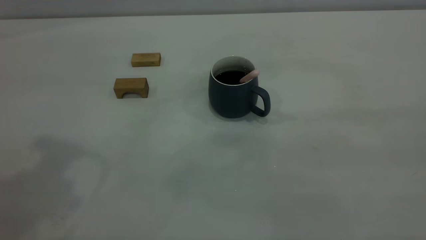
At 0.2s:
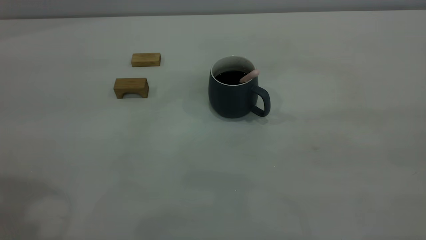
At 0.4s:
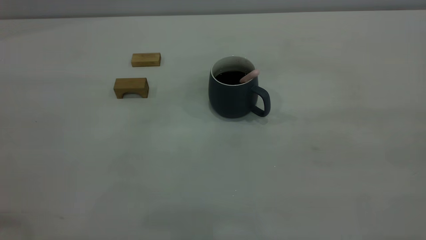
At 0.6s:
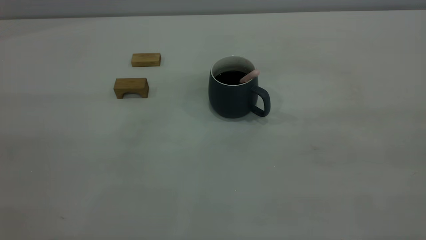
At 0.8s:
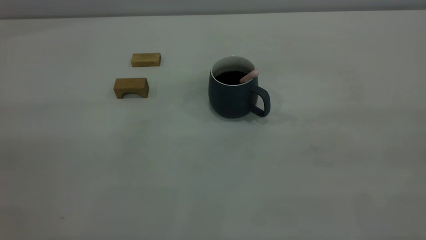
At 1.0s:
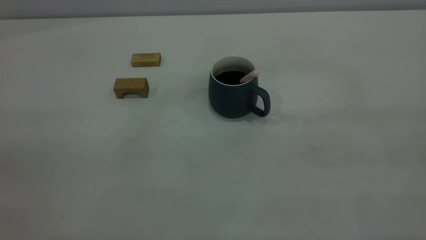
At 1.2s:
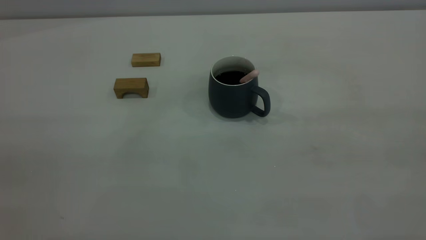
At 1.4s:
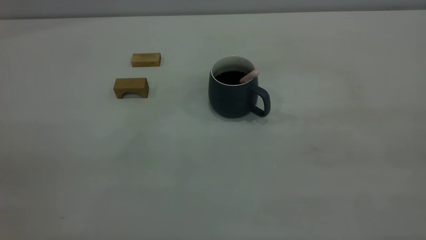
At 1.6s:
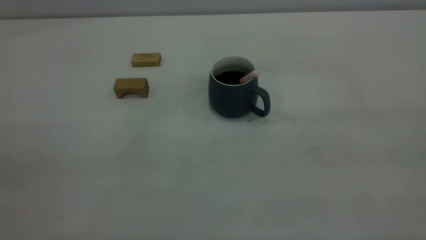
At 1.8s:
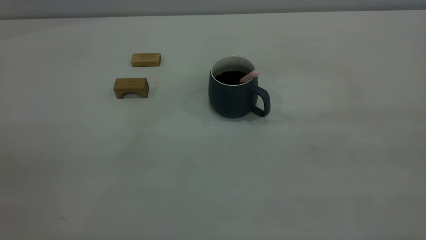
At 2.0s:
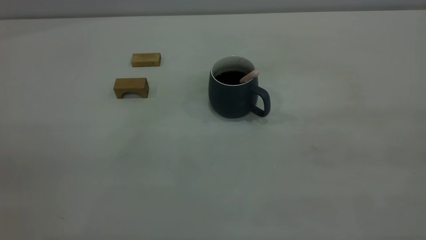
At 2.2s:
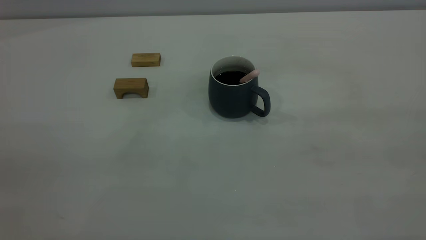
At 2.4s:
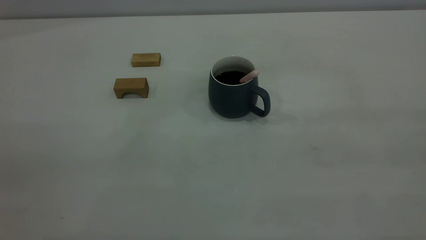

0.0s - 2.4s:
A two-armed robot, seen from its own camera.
1.2s - 2.4s: Neither gripper changes place.

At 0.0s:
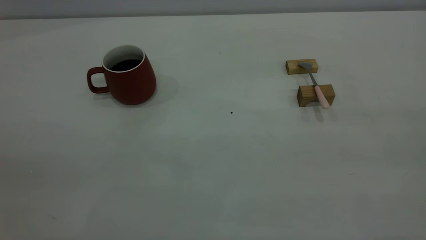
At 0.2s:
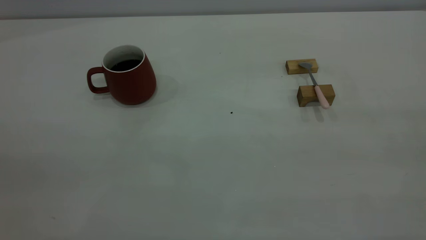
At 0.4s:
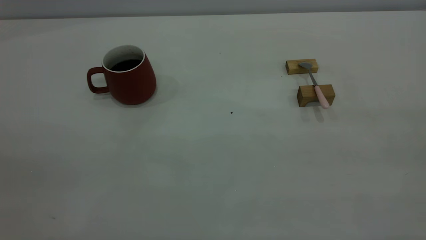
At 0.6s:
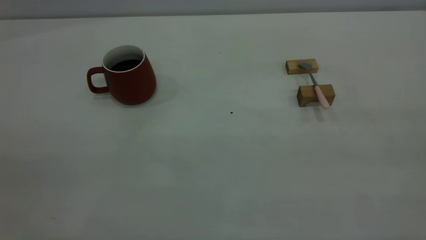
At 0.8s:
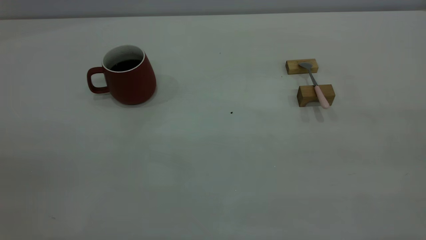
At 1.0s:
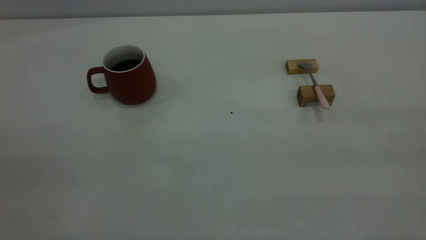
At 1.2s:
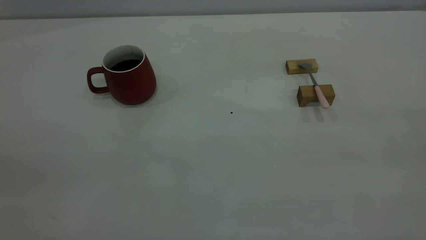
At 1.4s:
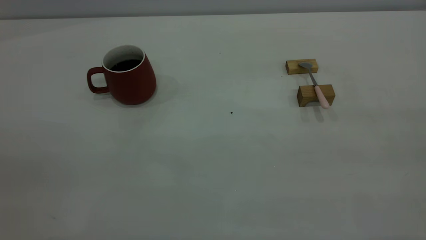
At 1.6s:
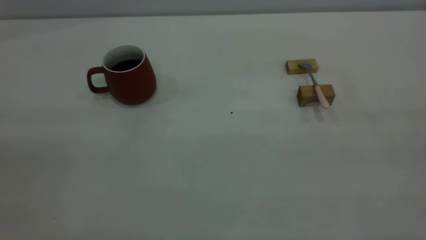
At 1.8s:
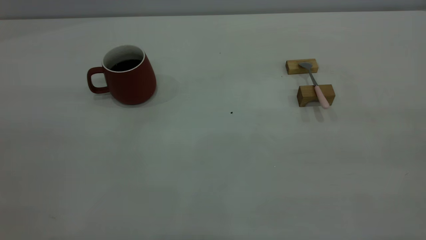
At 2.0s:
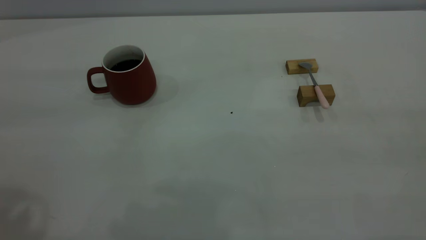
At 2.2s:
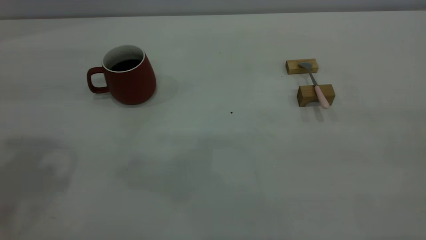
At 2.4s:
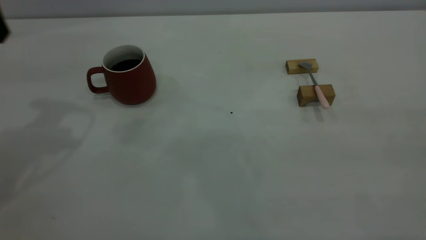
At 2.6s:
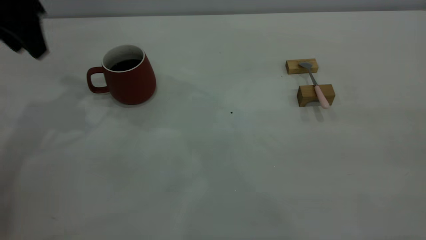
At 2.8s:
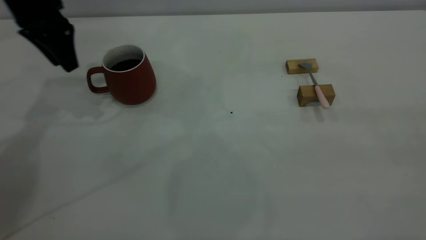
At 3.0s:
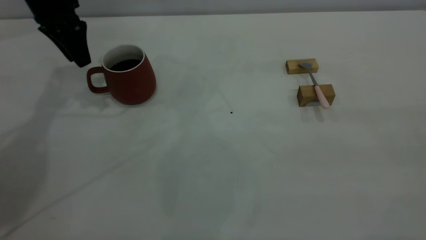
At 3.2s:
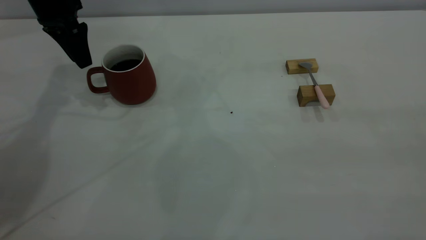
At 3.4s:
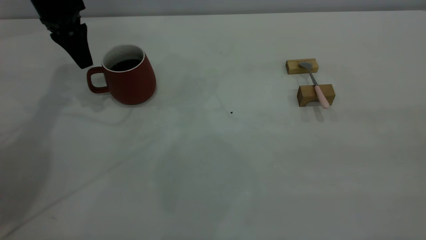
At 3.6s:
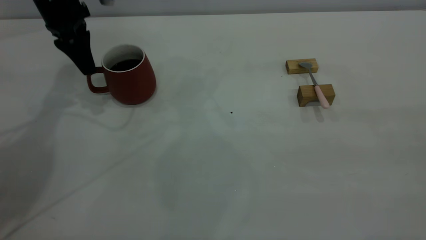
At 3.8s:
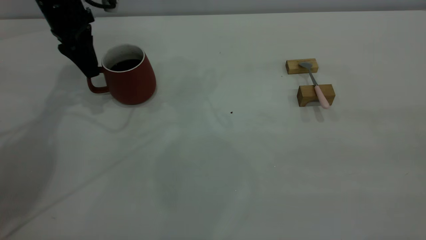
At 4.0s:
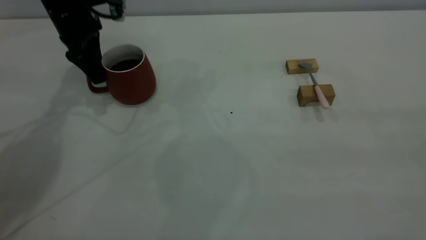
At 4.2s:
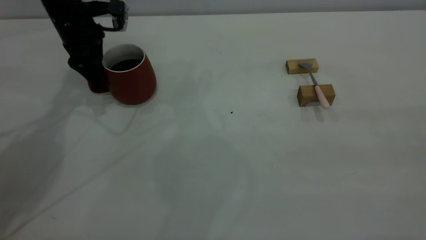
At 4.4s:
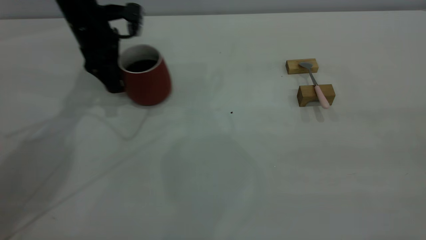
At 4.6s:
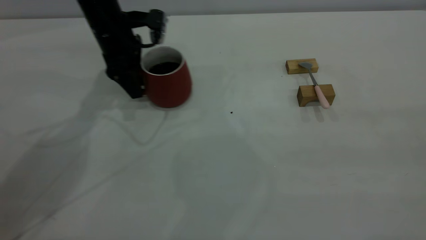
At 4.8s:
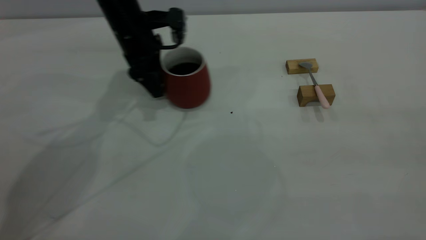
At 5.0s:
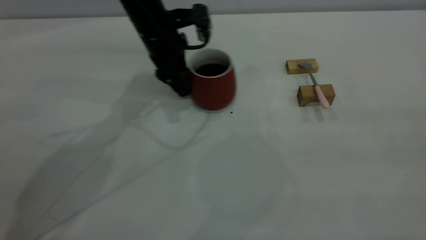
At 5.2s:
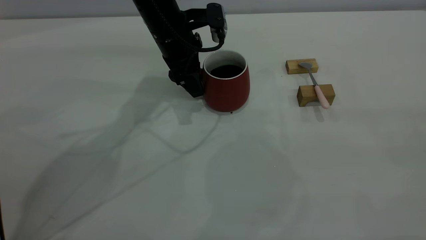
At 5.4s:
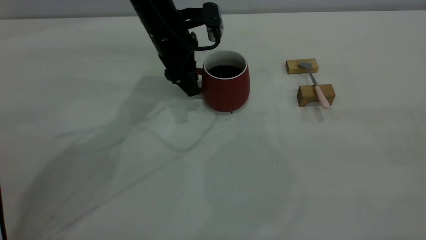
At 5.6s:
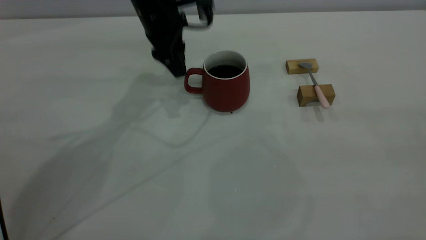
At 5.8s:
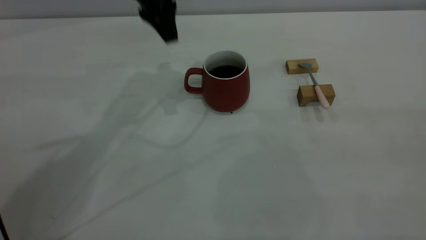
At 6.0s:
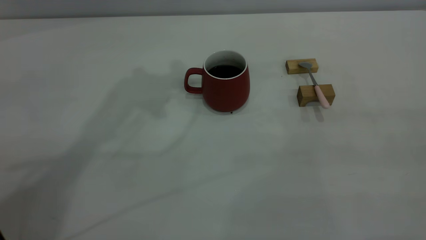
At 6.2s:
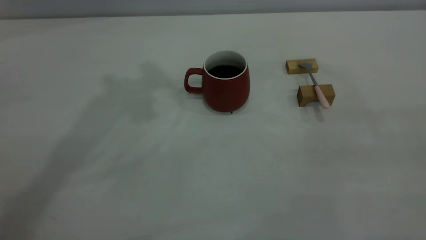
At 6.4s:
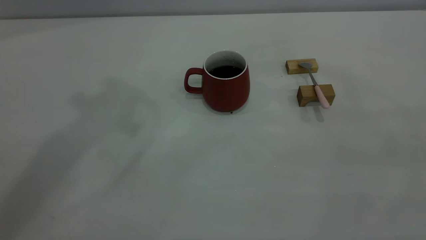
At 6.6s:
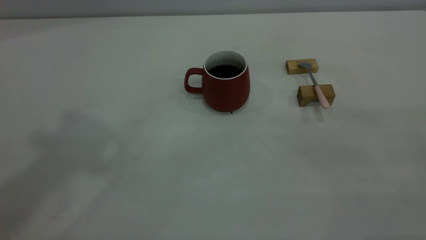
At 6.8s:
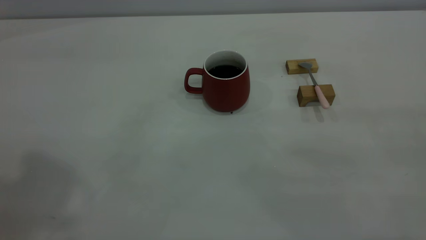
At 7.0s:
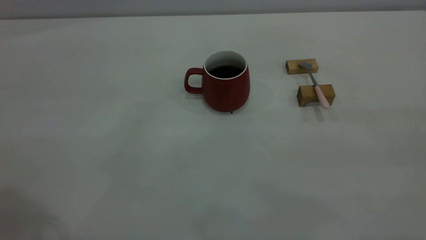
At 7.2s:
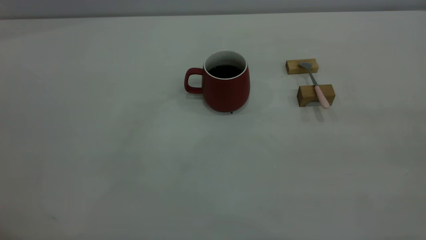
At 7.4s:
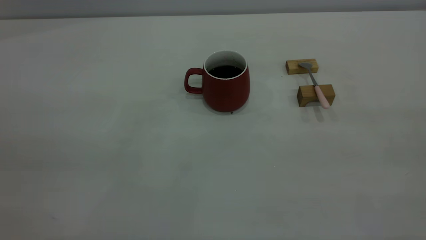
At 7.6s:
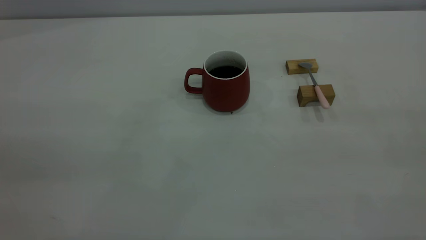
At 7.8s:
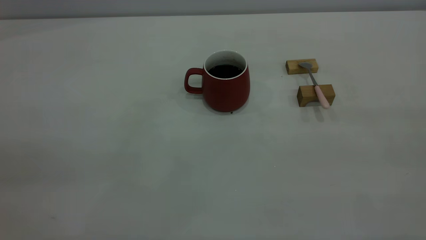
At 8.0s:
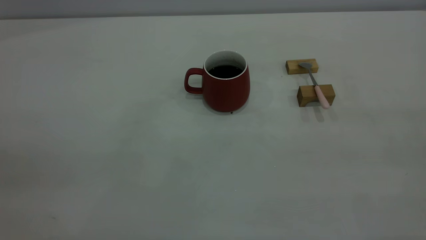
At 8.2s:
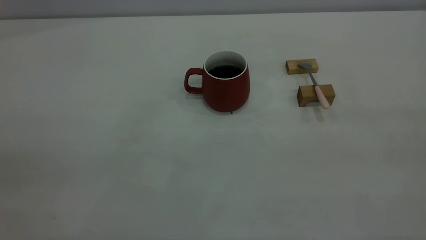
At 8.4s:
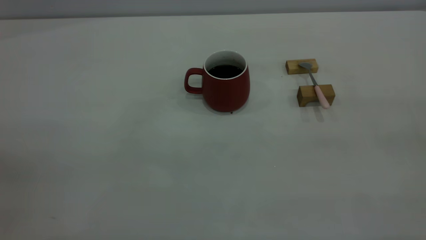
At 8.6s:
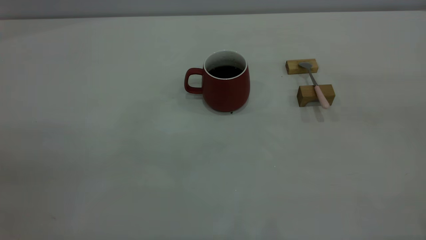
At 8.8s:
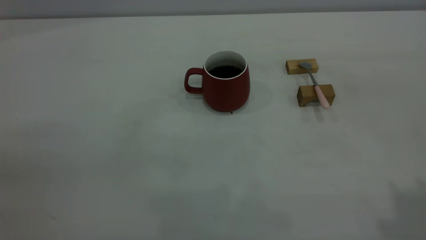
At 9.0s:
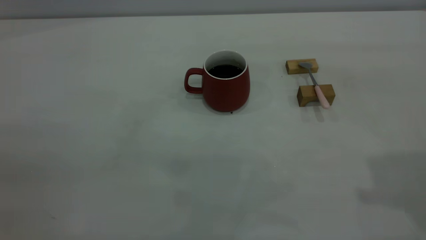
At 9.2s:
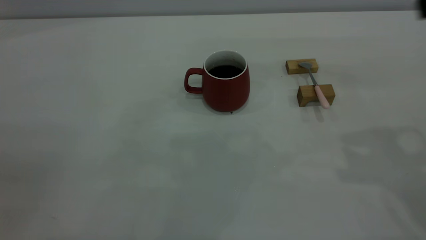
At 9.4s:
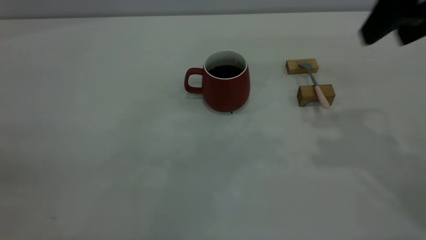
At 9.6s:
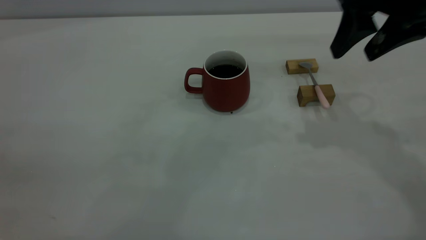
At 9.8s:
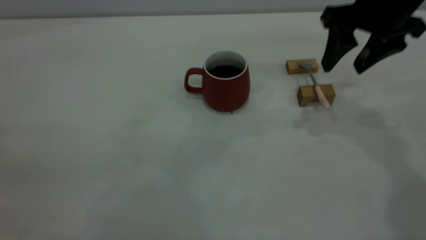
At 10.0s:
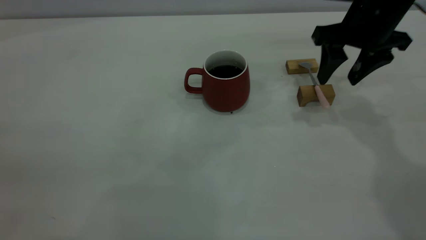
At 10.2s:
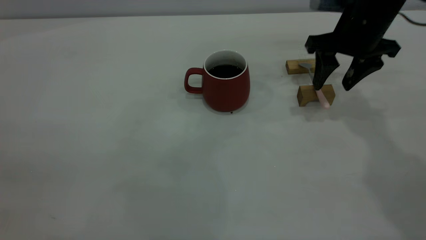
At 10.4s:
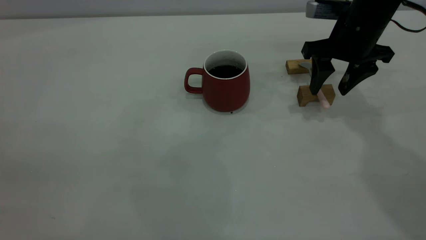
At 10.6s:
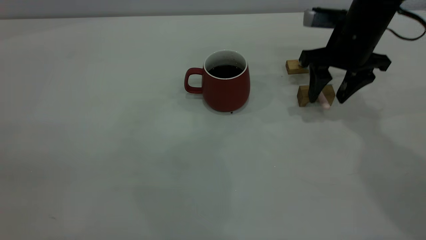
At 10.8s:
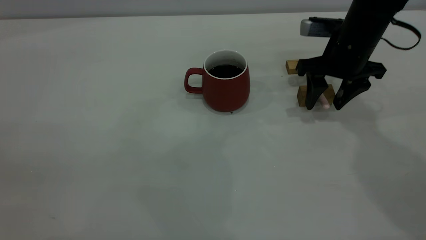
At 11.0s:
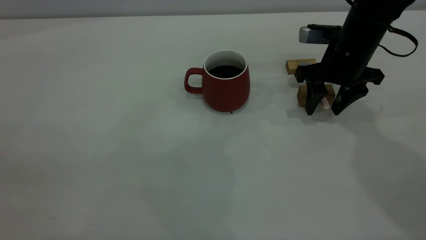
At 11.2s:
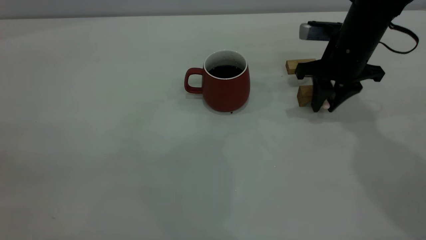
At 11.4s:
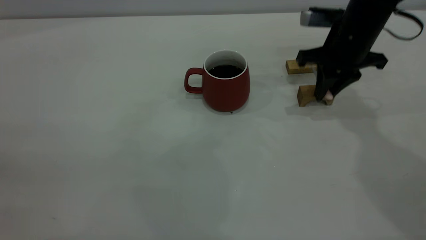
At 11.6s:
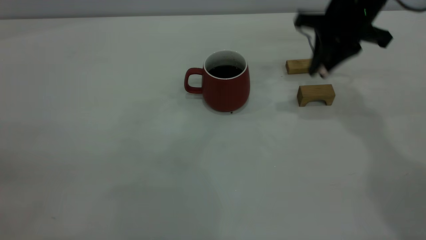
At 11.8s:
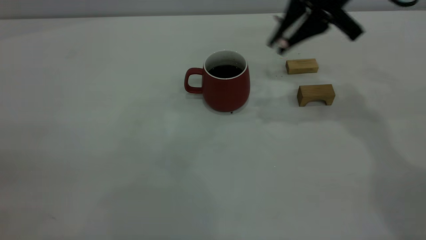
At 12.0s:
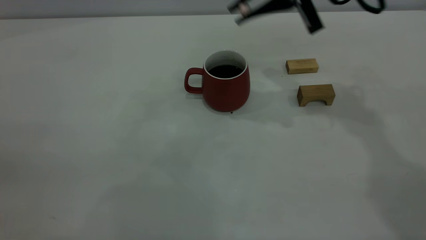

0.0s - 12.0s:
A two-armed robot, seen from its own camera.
Step, 0.0s - 5.6s: Move the cup with coffee to the center of view.
Step, 5.8s - 11.4s: Pick up the spoon.
1.6s - 3.0s: The left gripper heads forward and downward, covering roughly 50 cm.
3.0s - 4.4s: The left gripper heads downward and to the right, covering roughly 10 cm.
4.4s - 6.0s: The left gripper heads upward, covering some 25 cm.
9.0s - 10.4s: The right gripper goes approximately 30 cm downward and forward.
10.4s - 12.0s: The right gripper is displaced upward and to the left by some 10 cm, and closes its fingers.

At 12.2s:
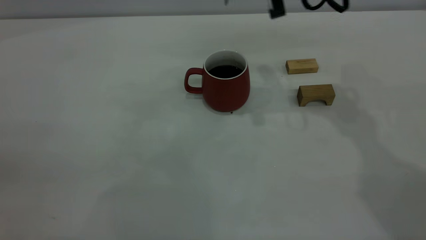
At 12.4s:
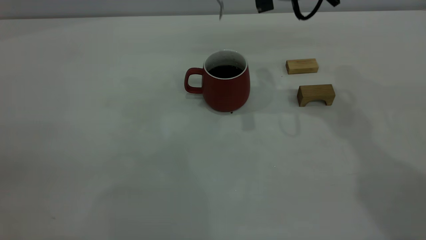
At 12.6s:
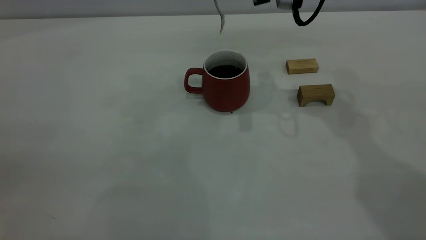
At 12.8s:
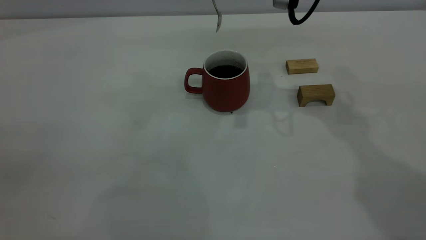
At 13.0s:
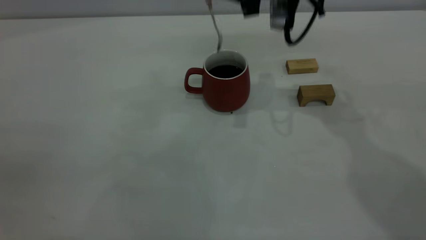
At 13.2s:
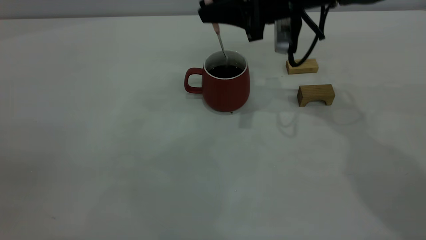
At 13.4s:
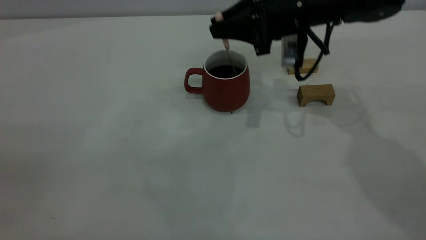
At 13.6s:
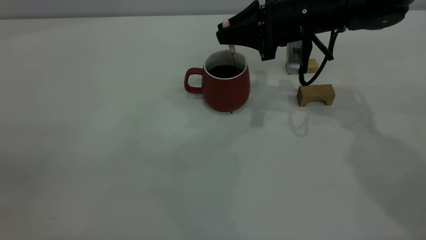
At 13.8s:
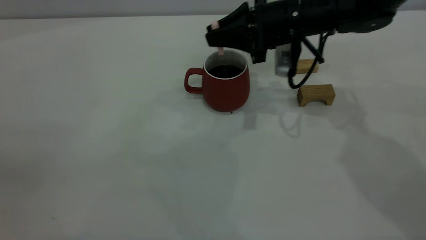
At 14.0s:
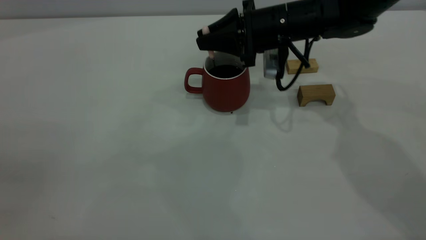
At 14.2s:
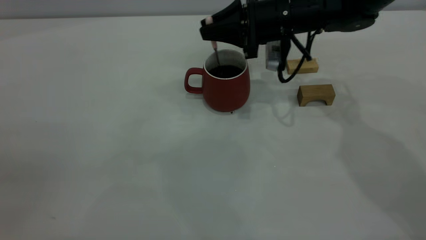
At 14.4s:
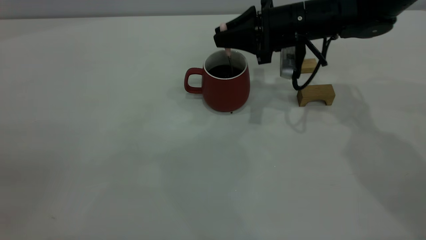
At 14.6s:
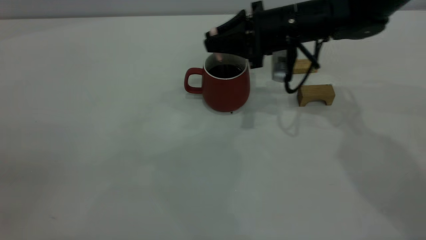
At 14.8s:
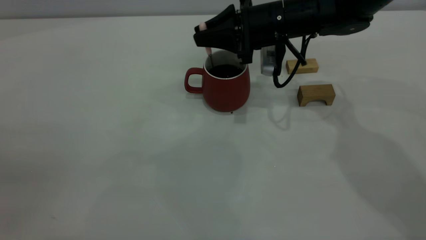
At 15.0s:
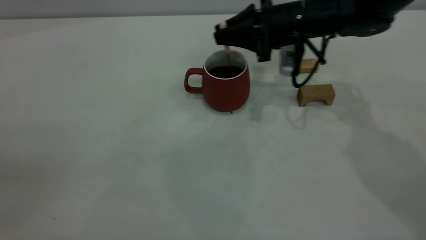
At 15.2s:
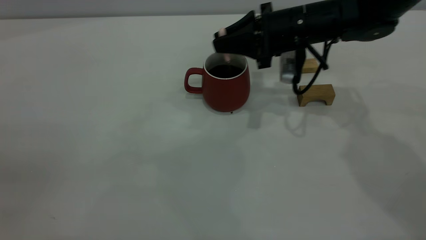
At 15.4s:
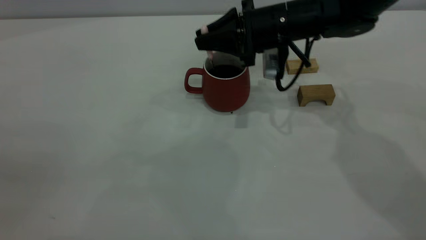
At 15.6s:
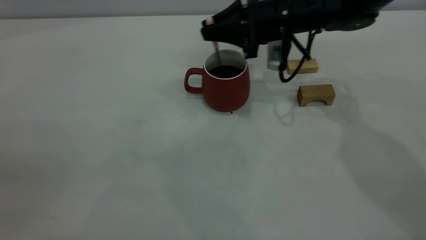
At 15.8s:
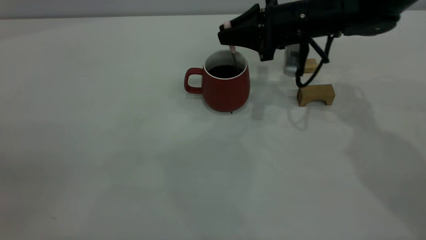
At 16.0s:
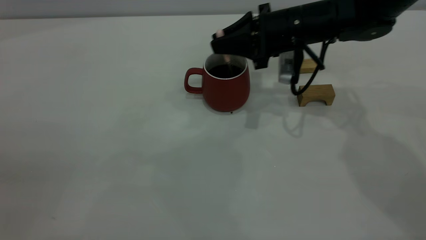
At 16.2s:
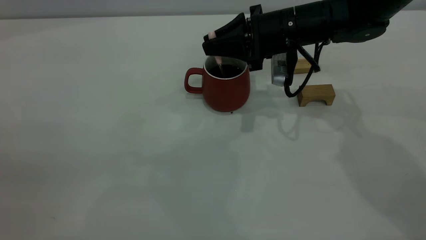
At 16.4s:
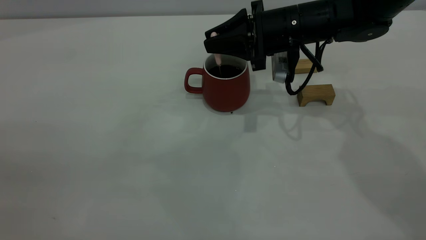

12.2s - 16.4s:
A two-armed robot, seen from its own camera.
12.2s - 13.6s: The right gripper goes some 10 cm downward.
13.6s - 16.4s: There are only small adjustments of the grippers.
